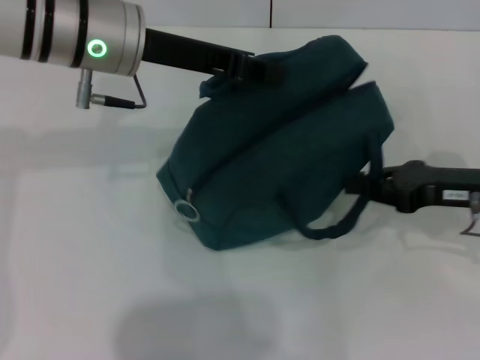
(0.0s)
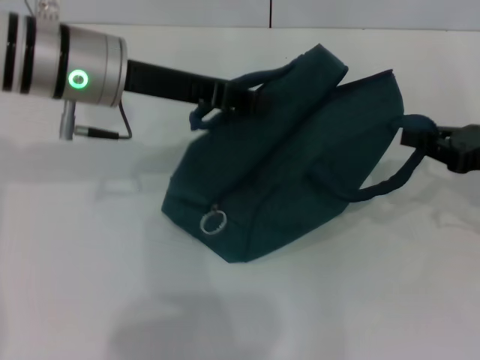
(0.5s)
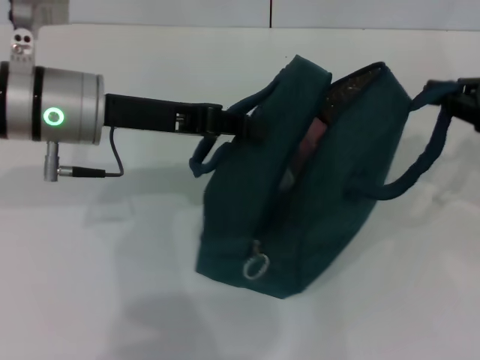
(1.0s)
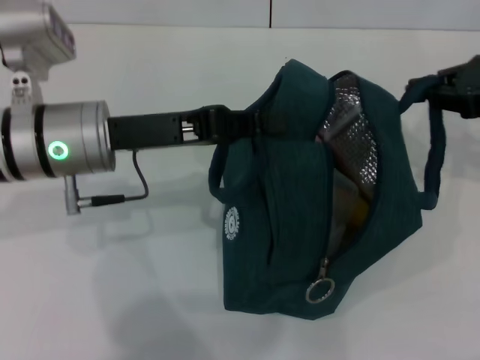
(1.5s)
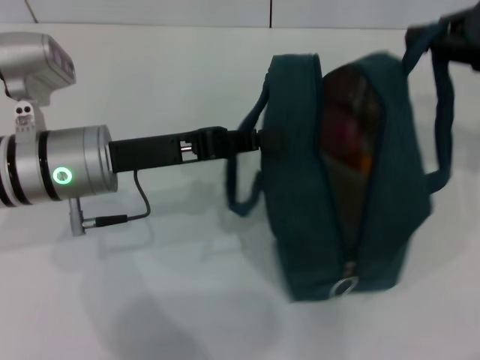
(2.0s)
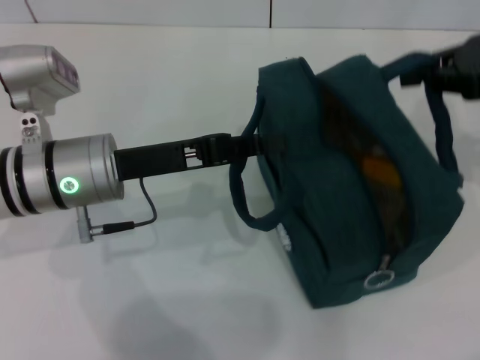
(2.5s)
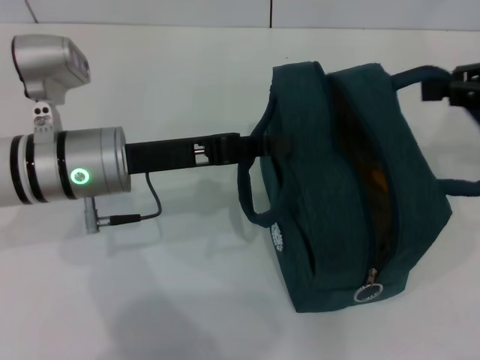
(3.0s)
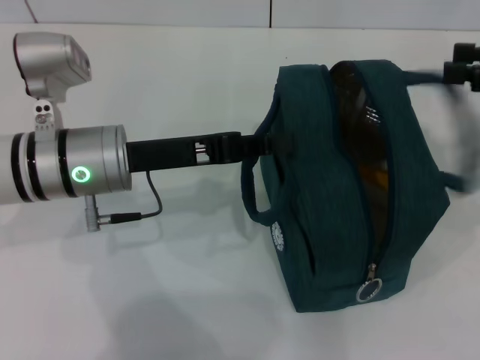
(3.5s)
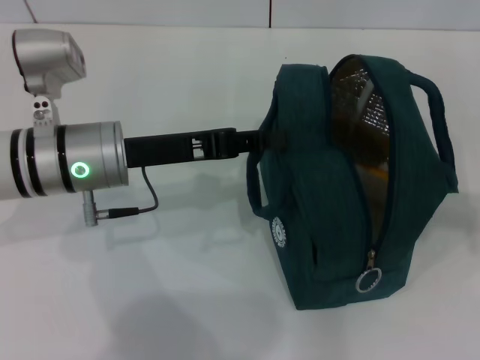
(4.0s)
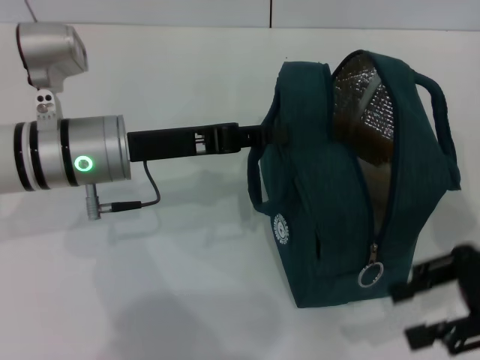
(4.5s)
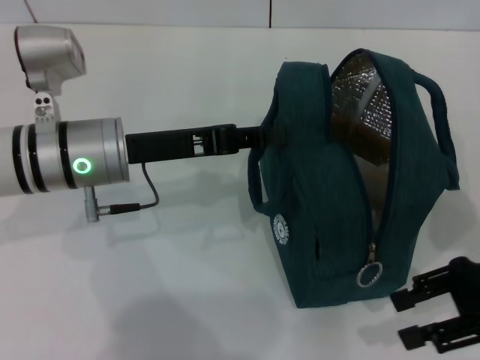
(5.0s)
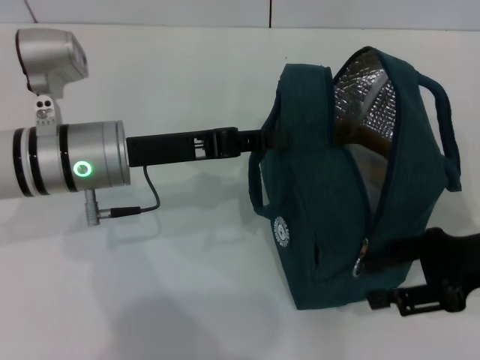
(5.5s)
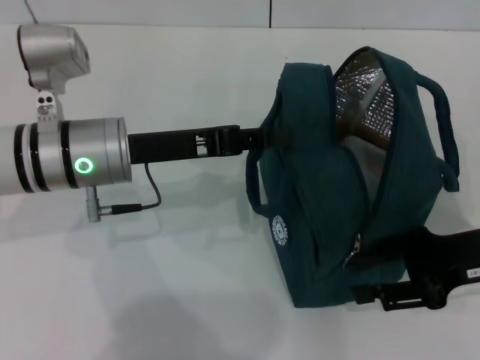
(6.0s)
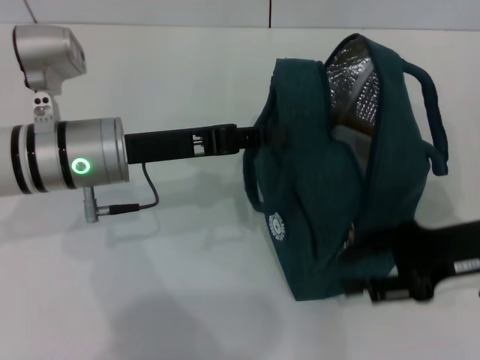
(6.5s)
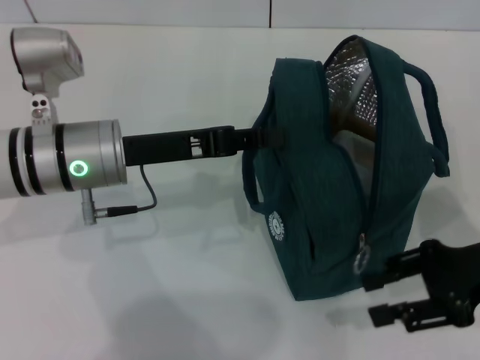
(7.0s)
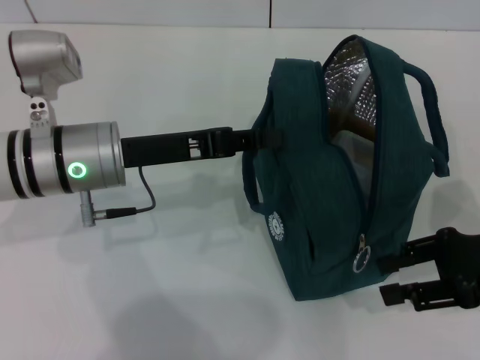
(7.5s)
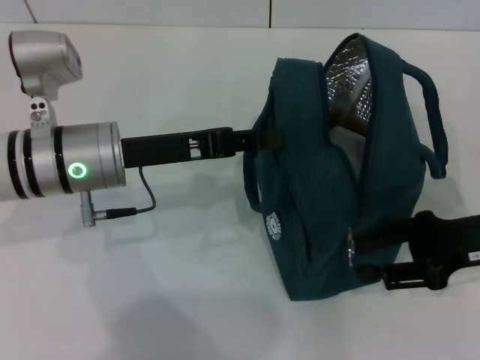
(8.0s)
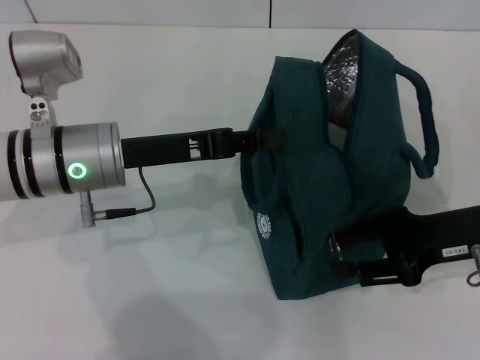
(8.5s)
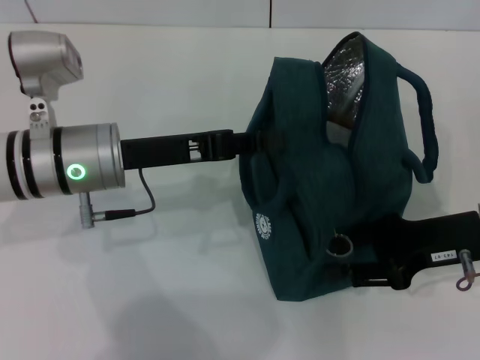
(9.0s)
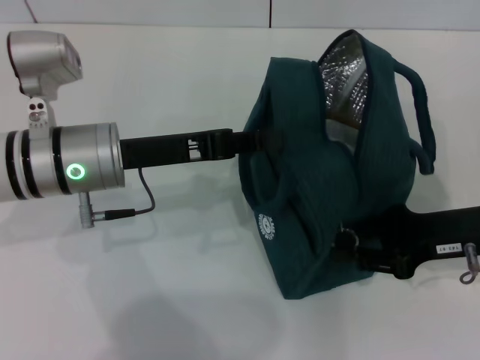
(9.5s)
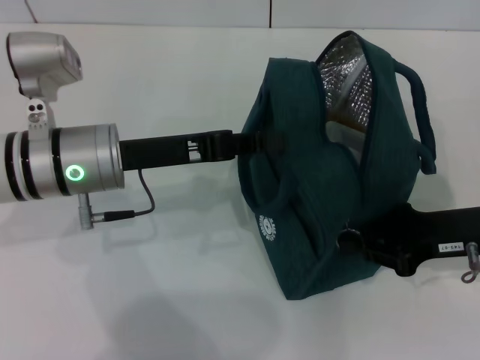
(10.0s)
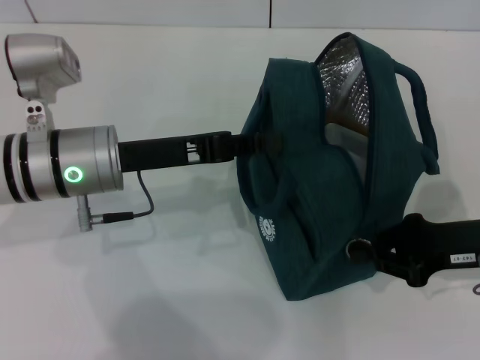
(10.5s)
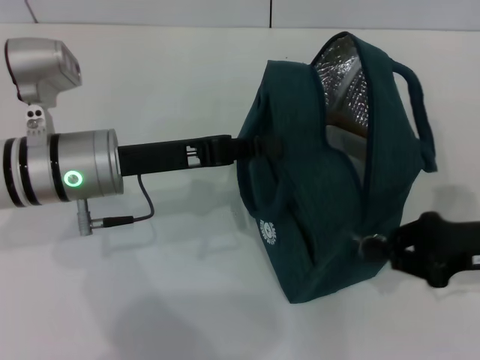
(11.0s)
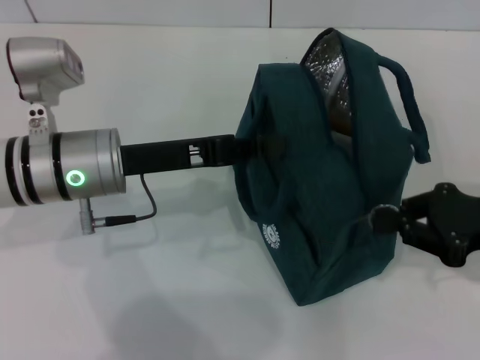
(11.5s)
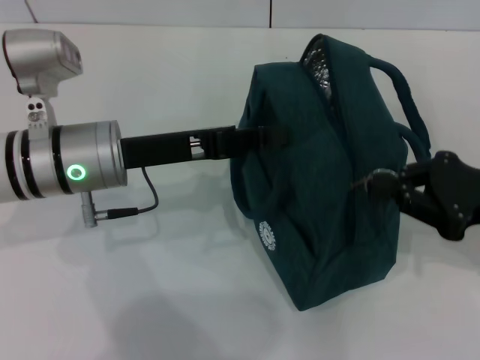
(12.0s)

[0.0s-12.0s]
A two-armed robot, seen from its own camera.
Step, 0.0s to 3.5s: Hold the lunch bag with your right hand.
0.0s to 2.0s: The left gripper shifts roughly 10 cm downward and backward; the right gripper is displaced upward by roughly 15 cm.
2.0s to 4.0s: The right gripper moves backward and to the right, some 10 cm, and opens.
4.0s to 6.0s: The right gripper moves downward and to the left, some 15 cm.
6.0s to 8.0s: The grippers move only a little.
8.0s to 10.0s: The right gripper closes.

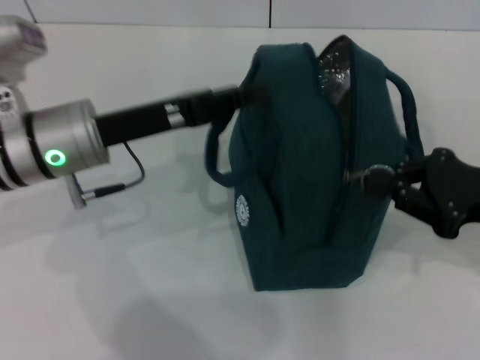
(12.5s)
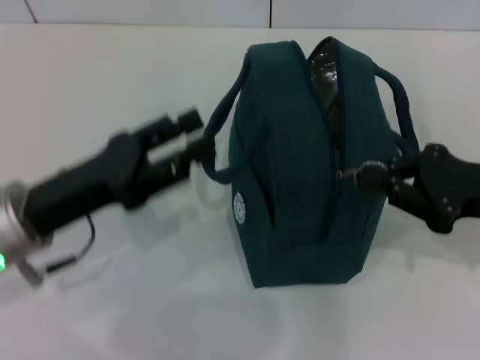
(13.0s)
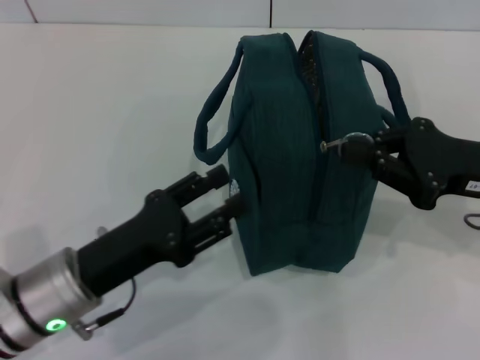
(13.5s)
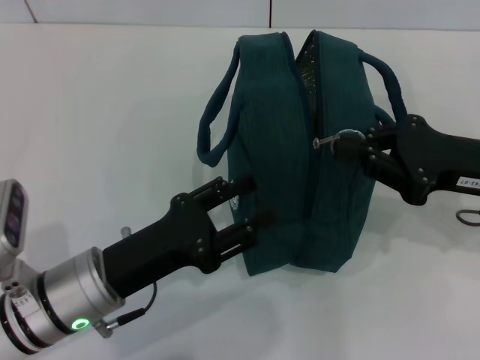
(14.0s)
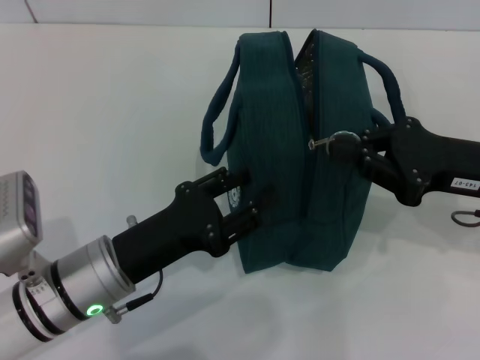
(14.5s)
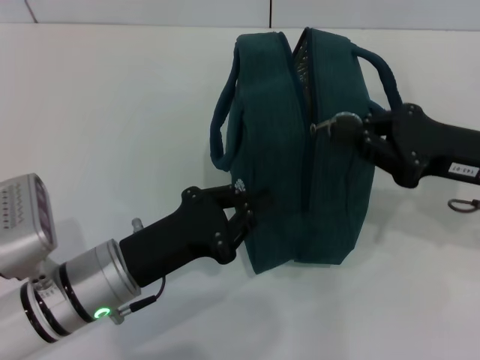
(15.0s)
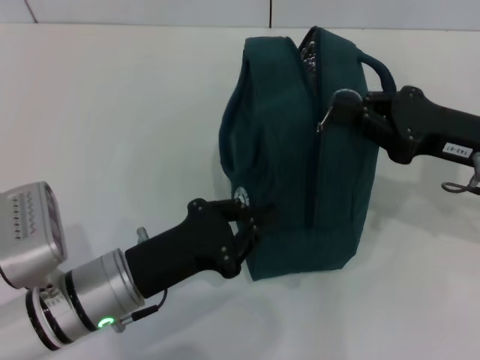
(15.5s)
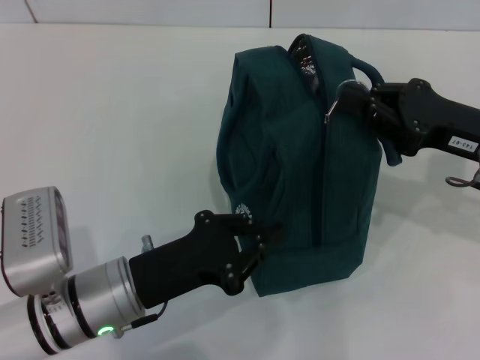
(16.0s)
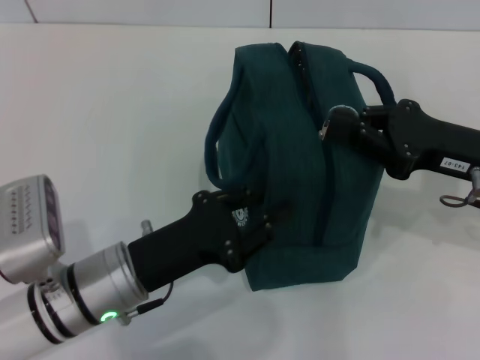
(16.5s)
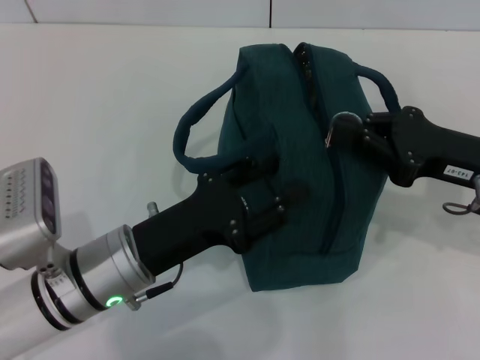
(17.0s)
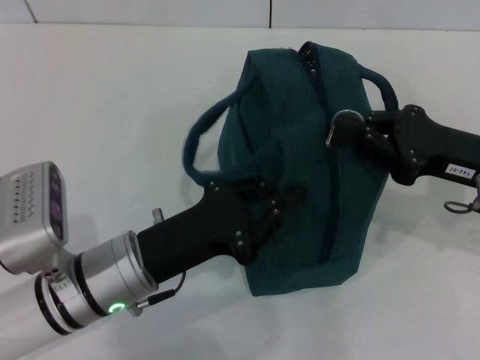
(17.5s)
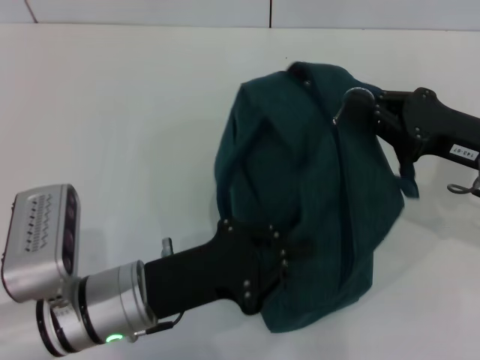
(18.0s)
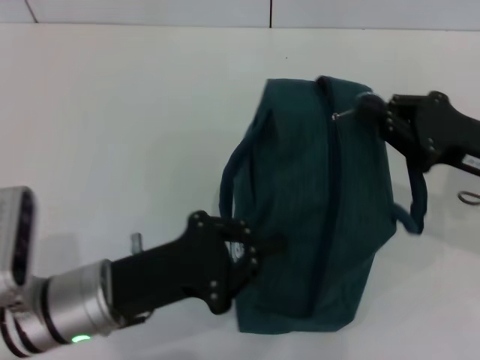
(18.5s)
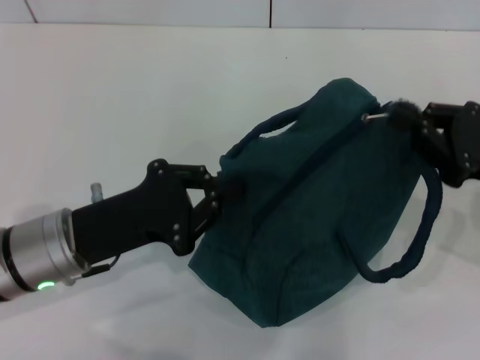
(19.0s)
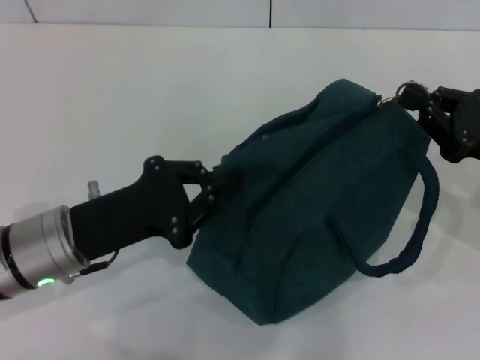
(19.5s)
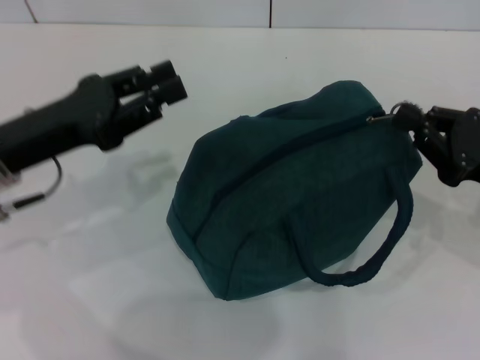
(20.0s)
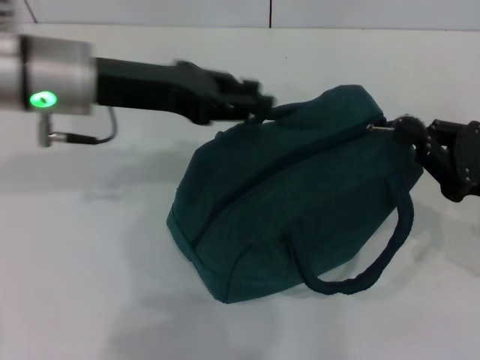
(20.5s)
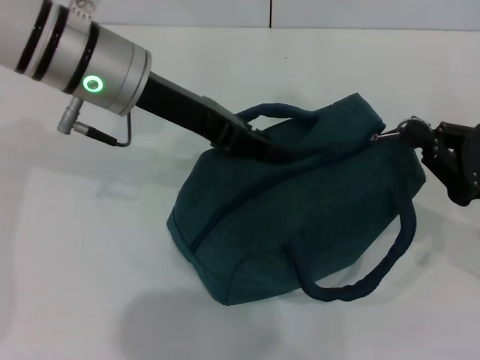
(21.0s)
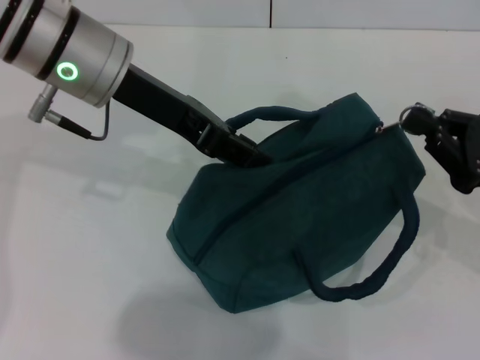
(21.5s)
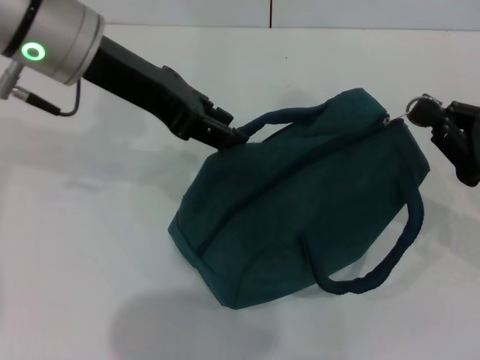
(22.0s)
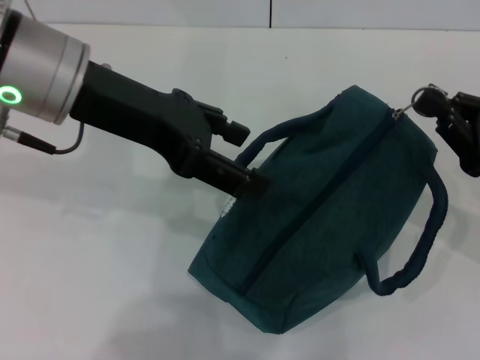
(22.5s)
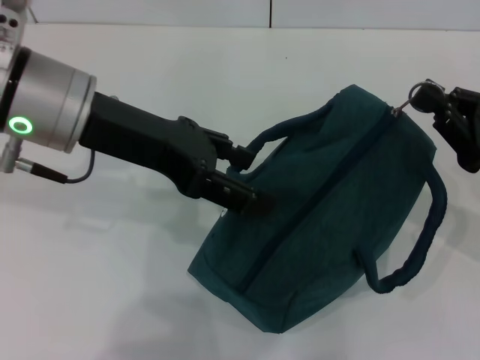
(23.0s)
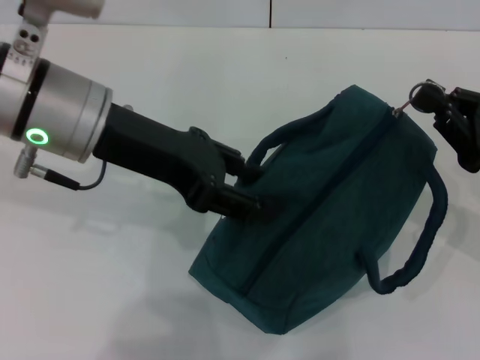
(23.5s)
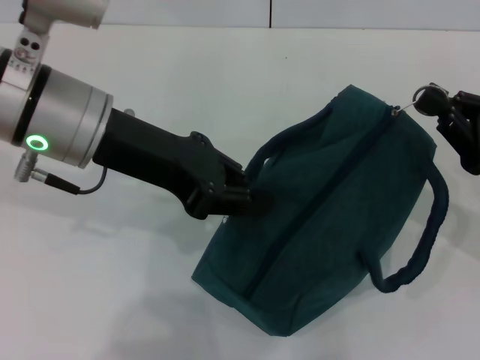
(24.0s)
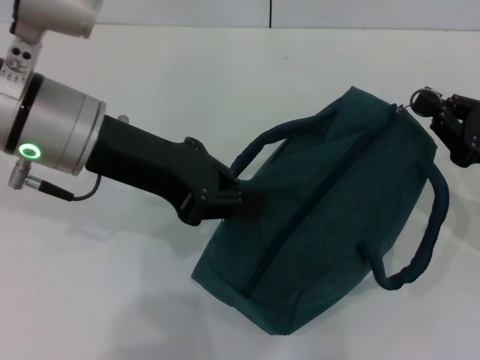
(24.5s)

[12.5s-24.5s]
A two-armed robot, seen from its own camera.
12.5s to 14.5s: The left gripper shifts approximately 15 cm backward and downward, and opens.
14.5s to 16.5s: The left gripper closes.
16.5s to 18.5s: The left gripper opens and closes again.
18.5s to 20.5s: The left gripper is displaced upward and forward by roughly 20 cm, and opens up. The right gripper shifts by approximately 5 cm.
20.5s to 22.5s: The left gripper goes approximately 5 cm upward.
22.5s to 24.5s: The left gripper closes its fingers.

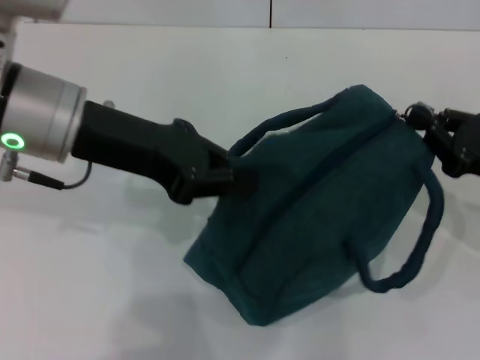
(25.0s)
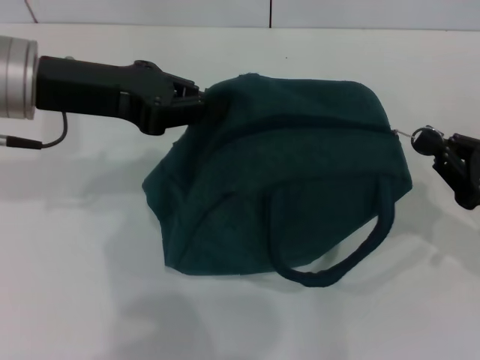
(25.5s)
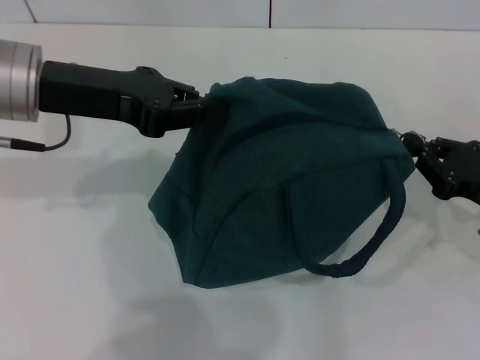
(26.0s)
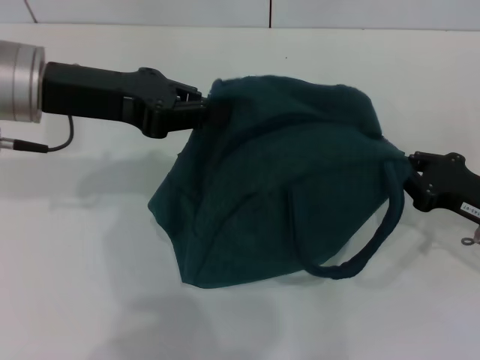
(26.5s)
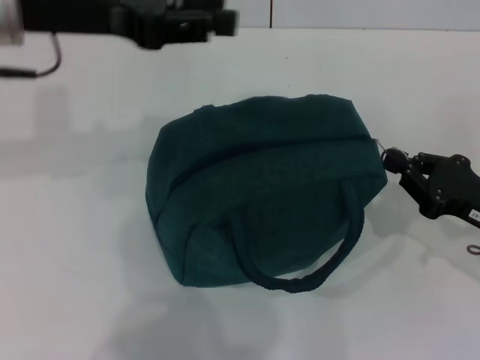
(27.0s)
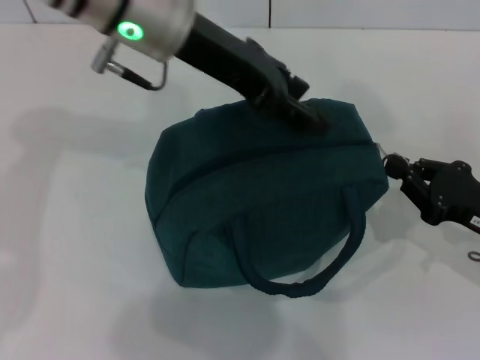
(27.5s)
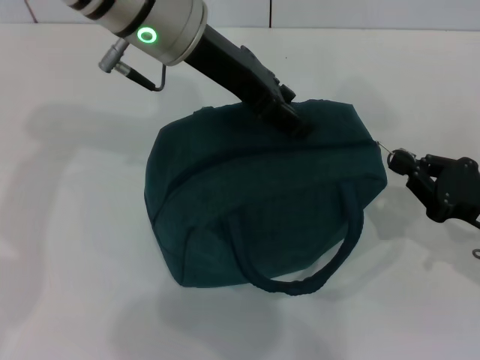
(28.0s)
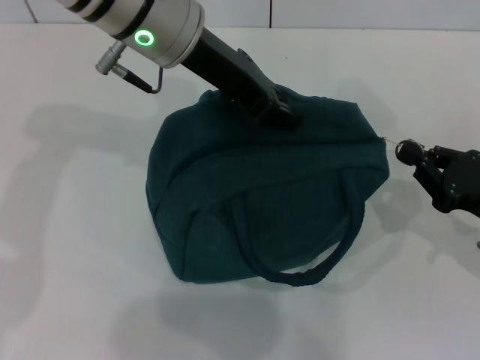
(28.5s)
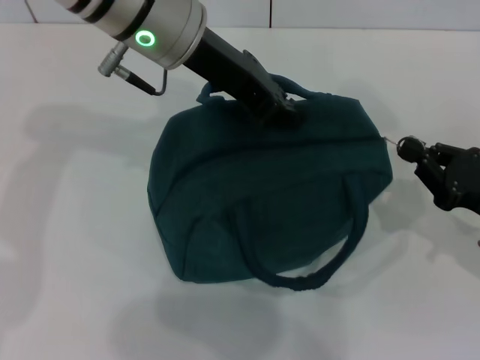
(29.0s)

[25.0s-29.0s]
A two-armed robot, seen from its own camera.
25.0s to 27.0s: The left gripper changes place by roughly 5 cm.
27.0s to 29.0s: The left gripper moves to the right, about 10 cm, and opens, then closes once more.
